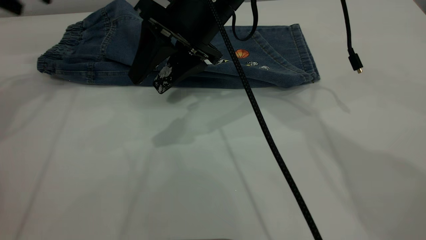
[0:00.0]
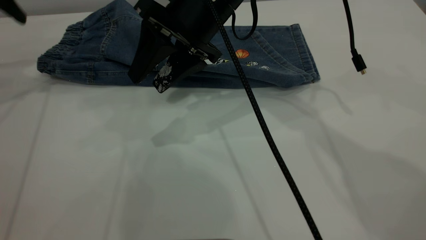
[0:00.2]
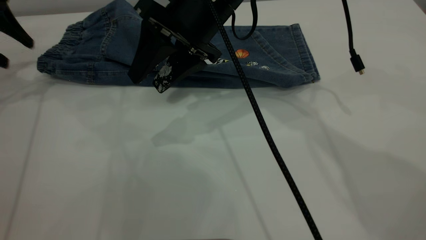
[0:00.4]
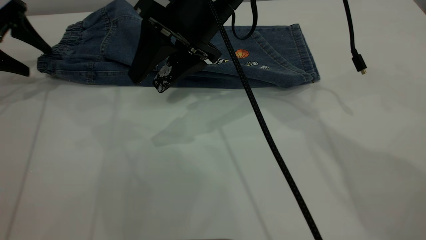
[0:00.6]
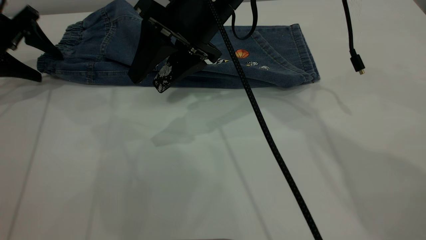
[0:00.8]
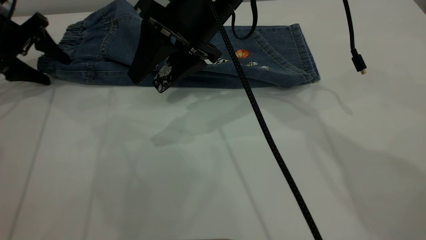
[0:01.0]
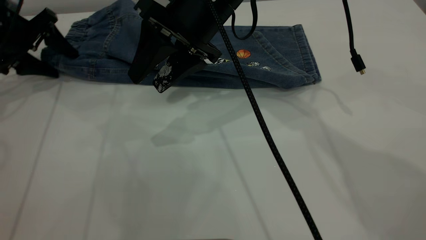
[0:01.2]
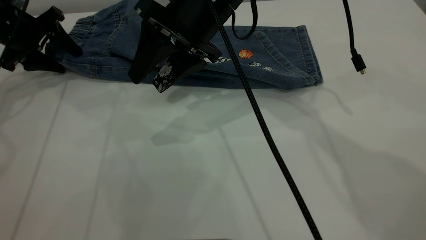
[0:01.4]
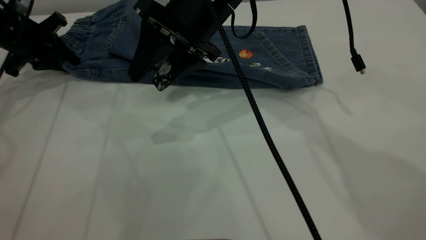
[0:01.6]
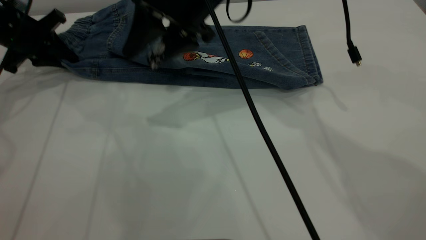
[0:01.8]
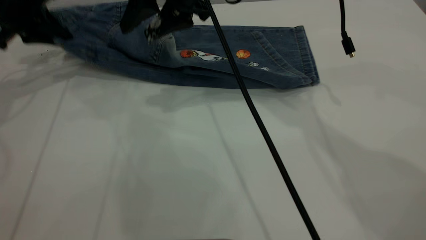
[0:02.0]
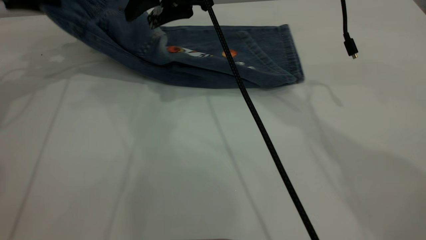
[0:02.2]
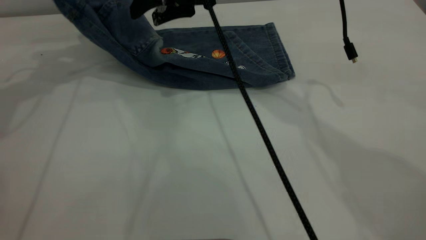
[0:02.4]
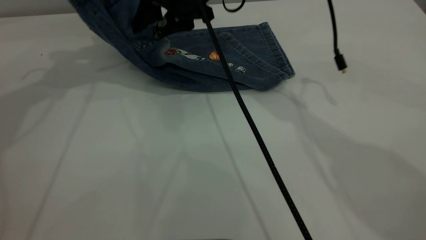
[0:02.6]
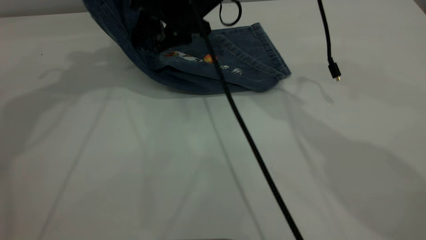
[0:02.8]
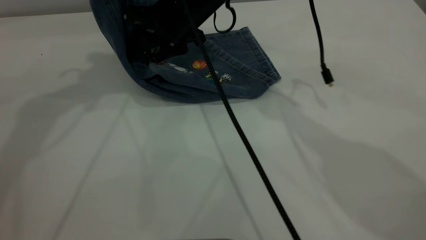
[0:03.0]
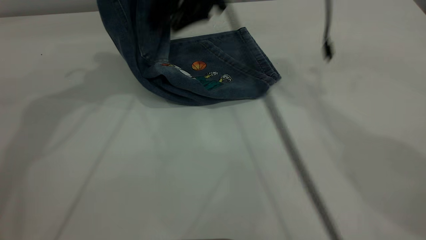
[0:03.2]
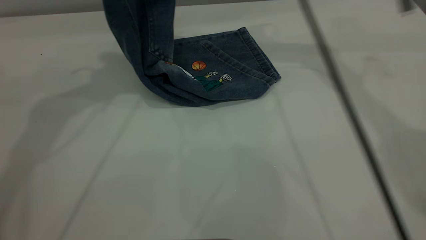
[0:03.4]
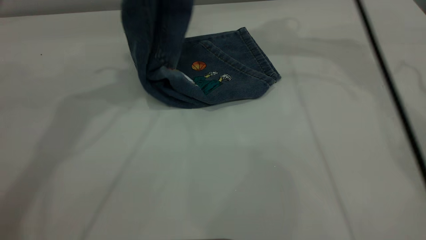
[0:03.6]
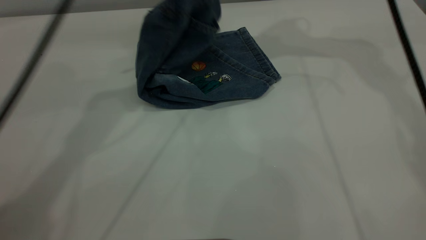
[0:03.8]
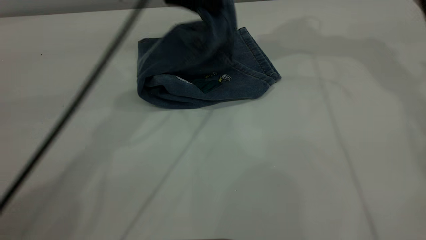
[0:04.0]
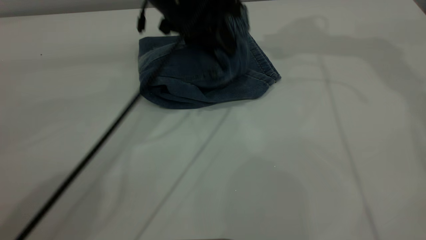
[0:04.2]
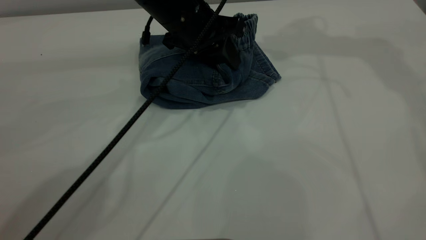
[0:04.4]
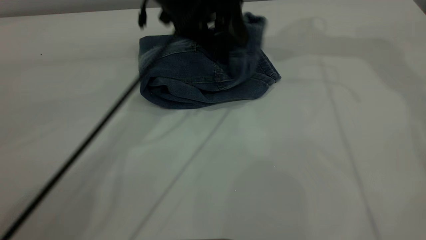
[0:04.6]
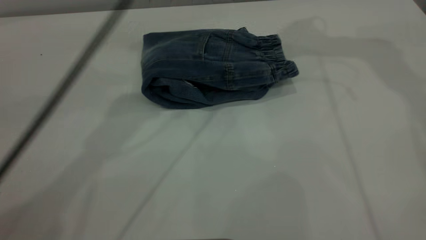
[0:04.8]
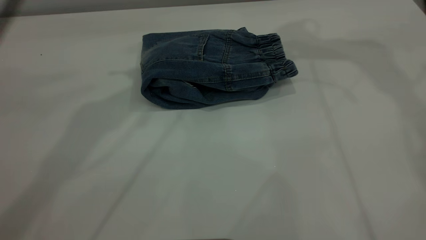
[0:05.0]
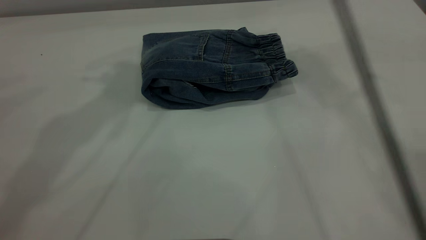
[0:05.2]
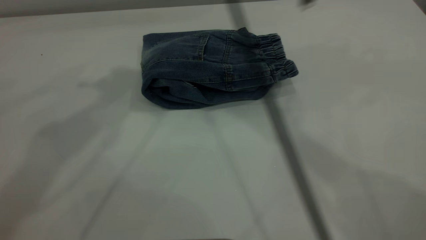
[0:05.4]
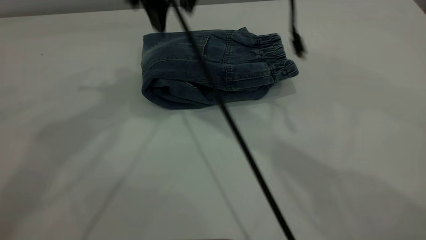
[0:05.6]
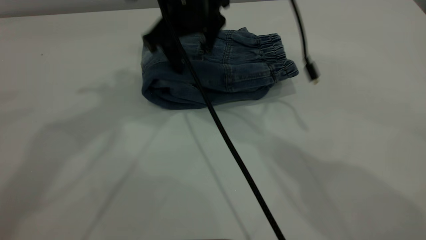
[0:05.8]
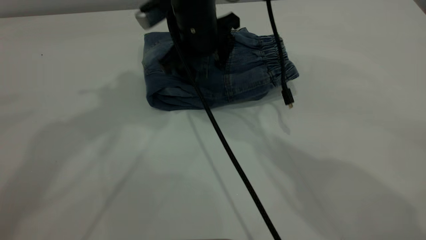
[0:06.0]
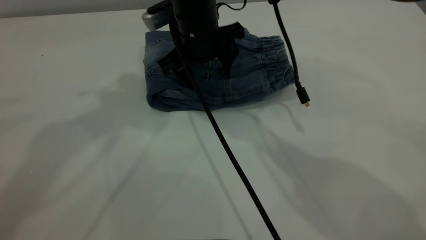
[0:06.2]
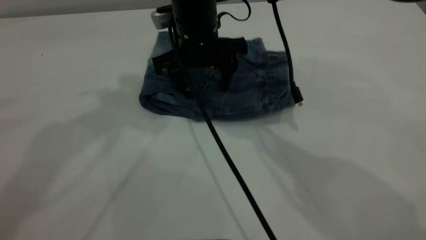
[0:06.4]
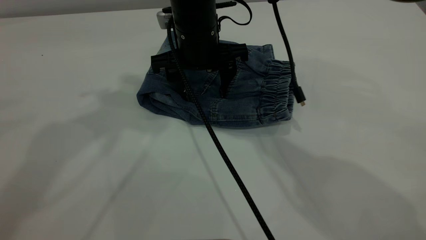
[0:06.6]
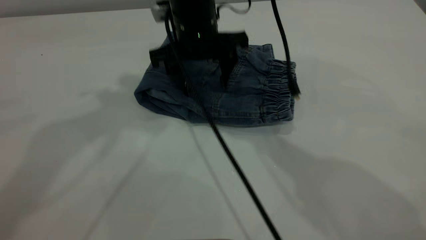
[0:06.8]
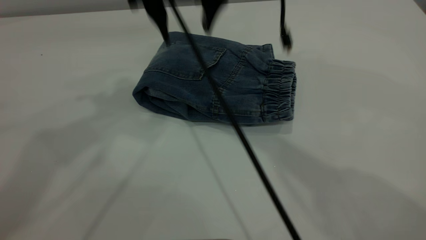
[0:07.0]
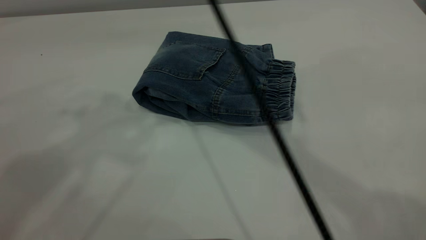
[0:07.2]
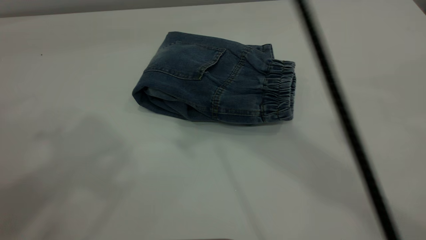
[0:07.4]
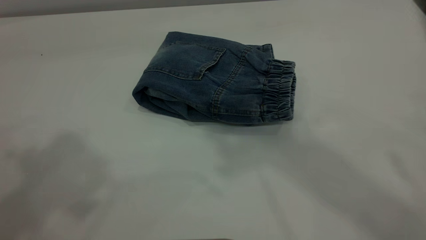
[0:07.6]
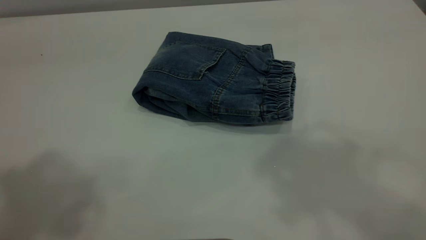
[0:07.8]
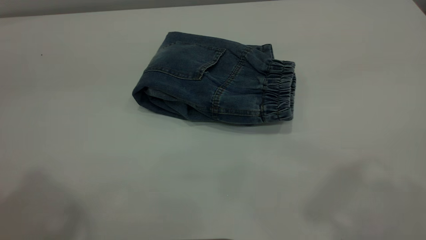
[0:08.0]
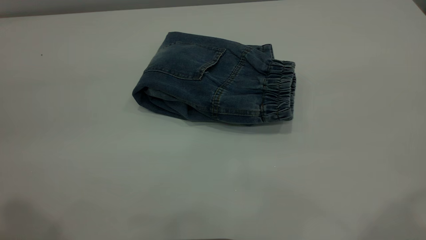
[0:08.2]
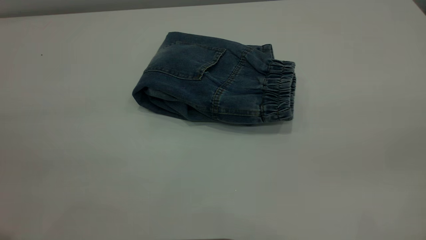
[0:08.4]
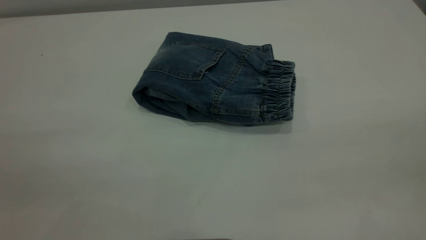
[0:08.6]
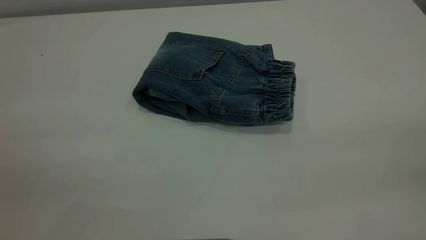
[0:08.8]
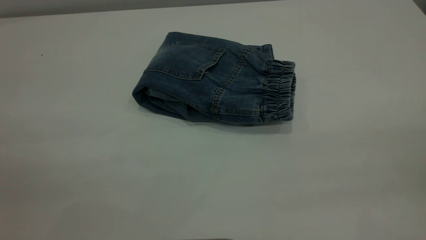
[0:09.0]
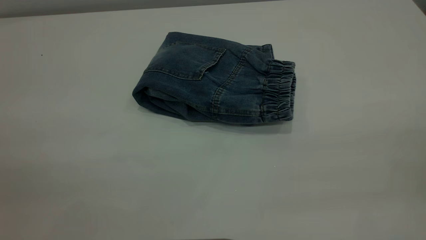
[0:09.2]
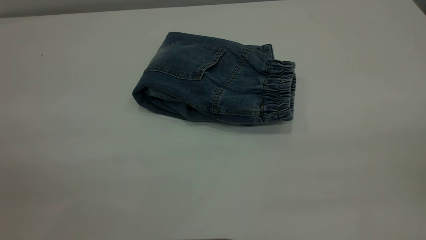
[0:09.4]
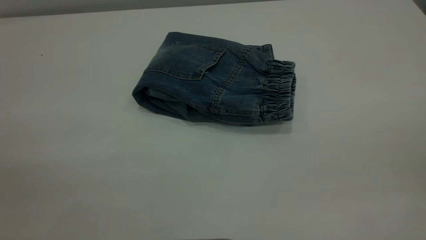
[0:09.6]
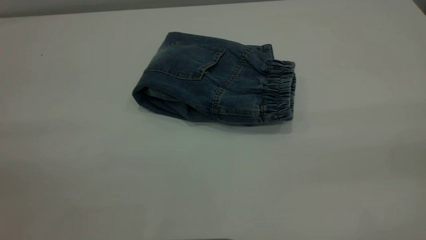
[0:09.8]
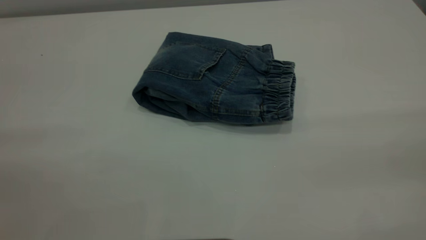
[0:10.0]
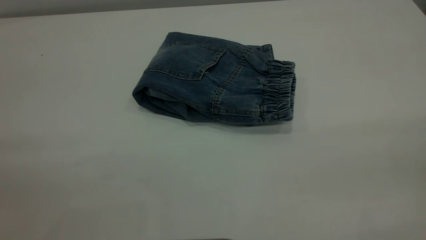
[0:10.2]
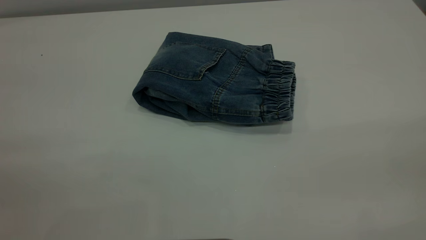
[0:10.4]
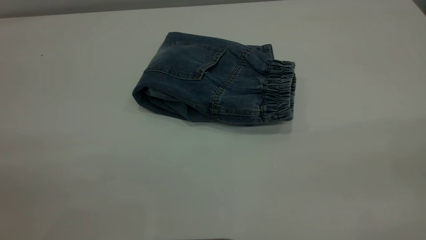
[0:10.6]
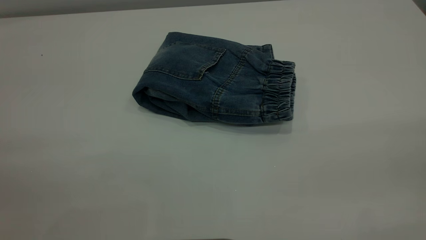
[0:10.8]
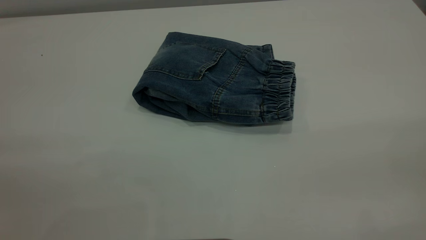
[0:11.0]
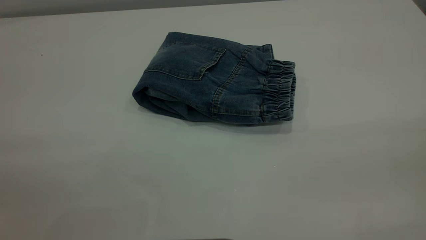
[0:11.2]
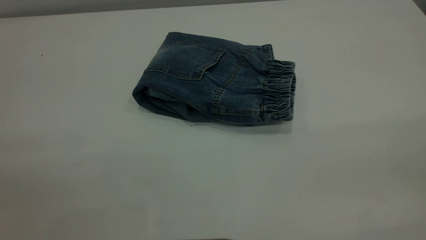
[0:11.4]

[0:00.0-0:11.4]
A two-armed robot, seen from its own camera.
Step, 0:00.0 to 0:05.4: Fold the pants from left to right.
0:00.0 to 0:01.4: The left gripper heads downward, covering roughly 15 cm.
0:01.4 to 0:02.8: The left gripper goes roughly 25 cm upward and to the right, and closes its fingers. Meanwhile the right gripper moves forward, roughly 5 cm.
0:02.8 to 0:04.2: The right gripper is displaced to the right and upward by some 30 cm; the left gripper shifts approximately 25 cm to the right and downward.
0:04.2 to 0:05.6: The right gripper moves to the left and downward, some 25 cm, and opens up, while the left gripper goes approximately 30 cm upward and to the left, and opens its fingers.
0:05.6 to 0:07.2: The right gripper shifts approximately 15 cm upward; the left gripper goes approximately 10 cm backward and upward.
0:07.2 to 0:08.6: The right gripper travels backward and to the right by approximately 40 cm. The left gripper travels backward and downward by some 25 cm.
0:10.0 to 0:11.4: The two grippers keep their place.

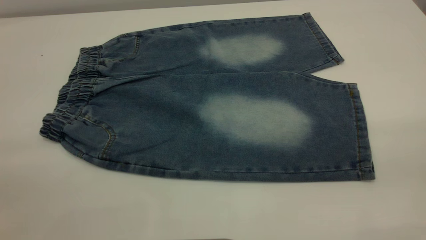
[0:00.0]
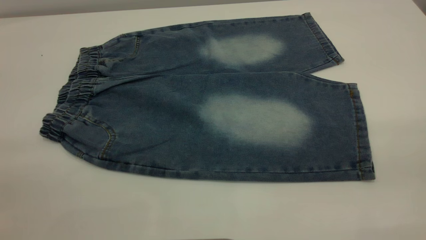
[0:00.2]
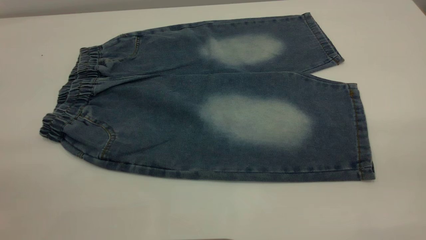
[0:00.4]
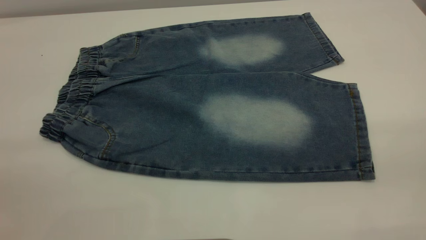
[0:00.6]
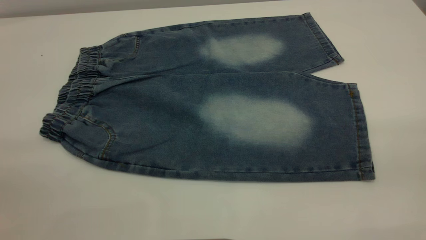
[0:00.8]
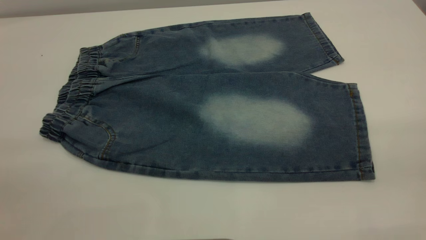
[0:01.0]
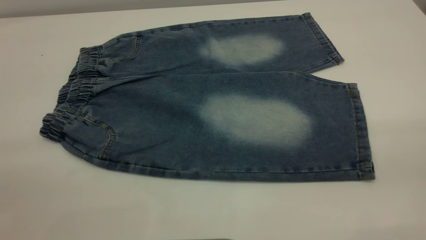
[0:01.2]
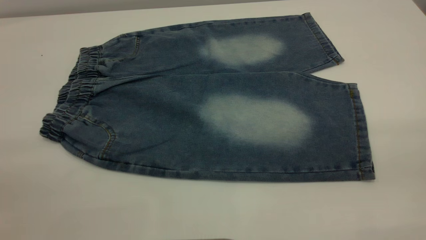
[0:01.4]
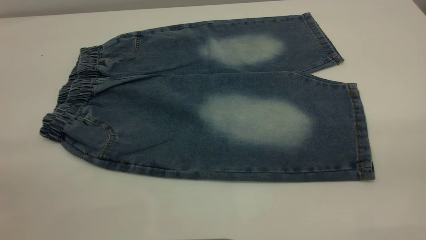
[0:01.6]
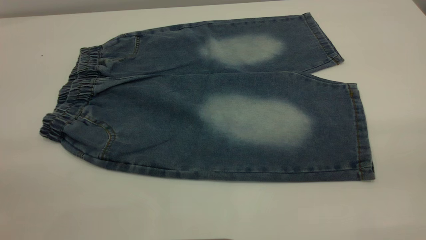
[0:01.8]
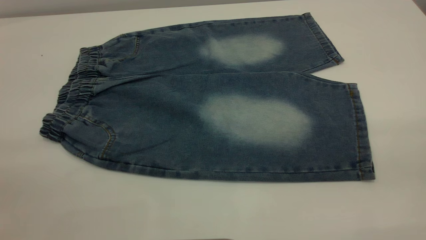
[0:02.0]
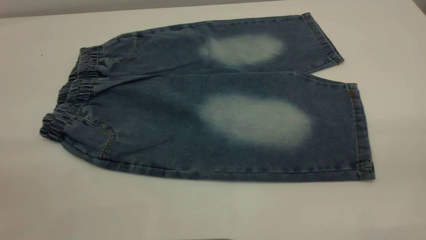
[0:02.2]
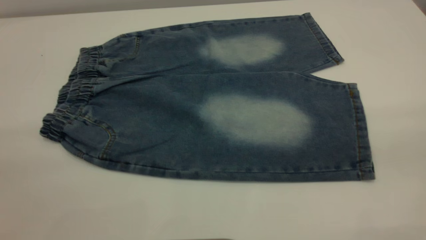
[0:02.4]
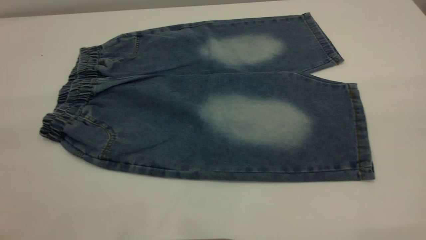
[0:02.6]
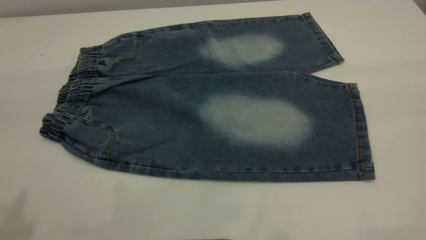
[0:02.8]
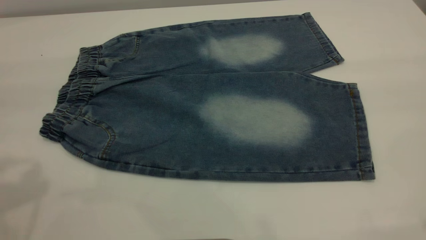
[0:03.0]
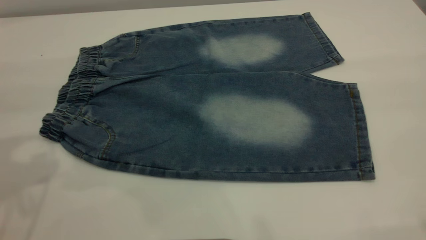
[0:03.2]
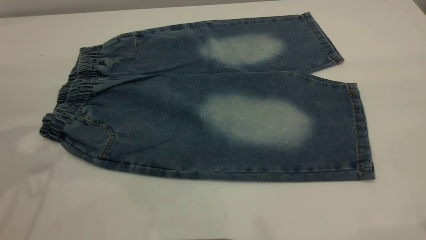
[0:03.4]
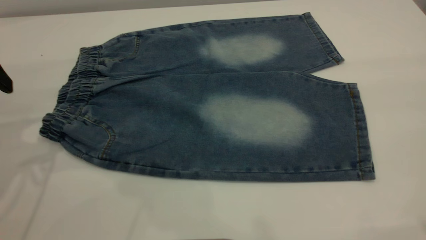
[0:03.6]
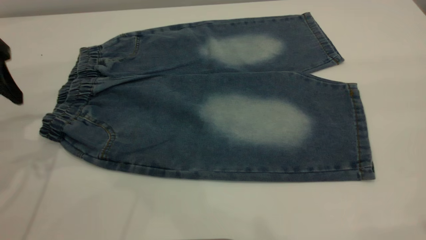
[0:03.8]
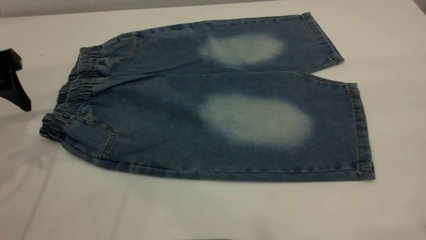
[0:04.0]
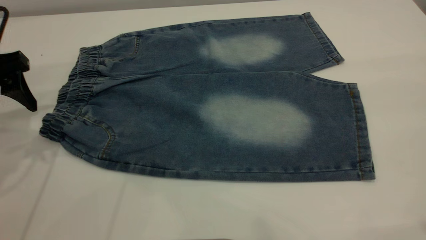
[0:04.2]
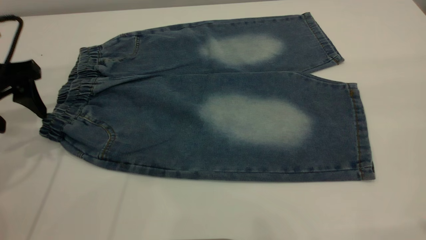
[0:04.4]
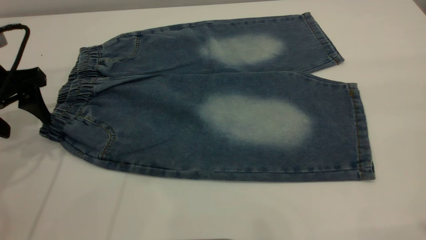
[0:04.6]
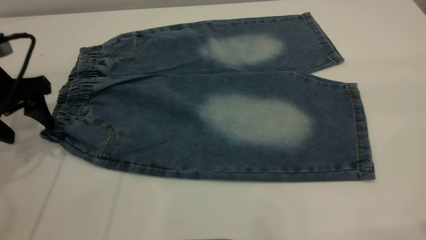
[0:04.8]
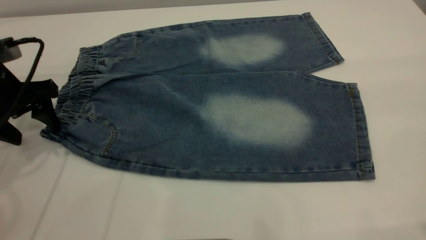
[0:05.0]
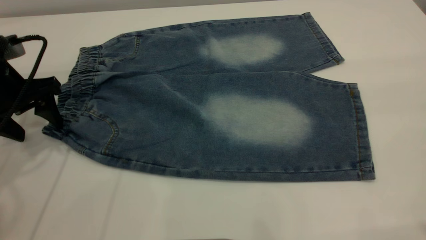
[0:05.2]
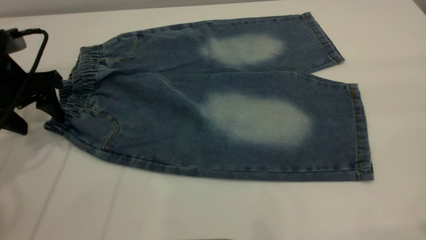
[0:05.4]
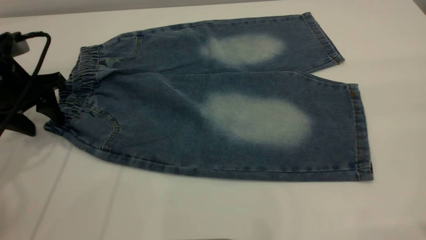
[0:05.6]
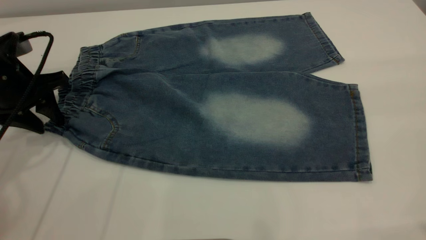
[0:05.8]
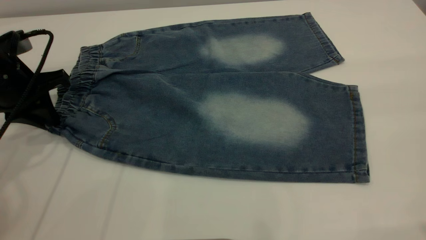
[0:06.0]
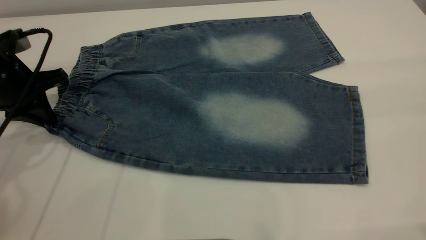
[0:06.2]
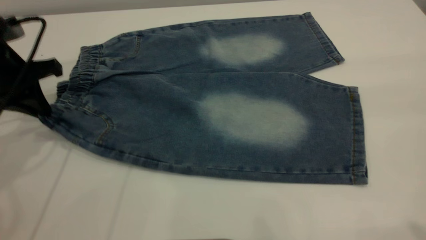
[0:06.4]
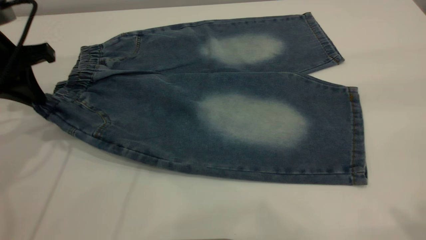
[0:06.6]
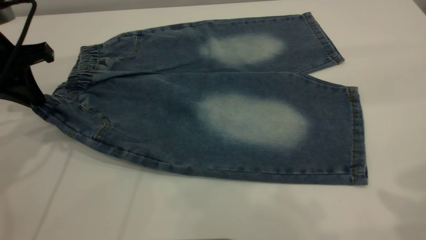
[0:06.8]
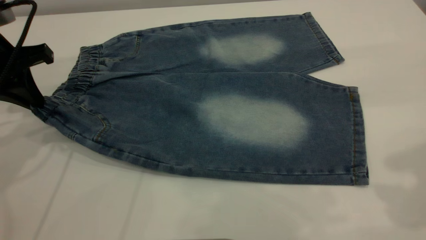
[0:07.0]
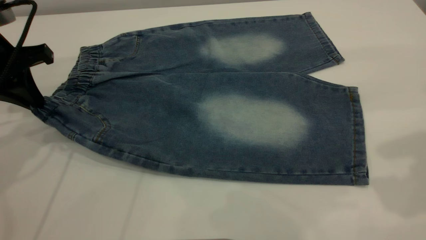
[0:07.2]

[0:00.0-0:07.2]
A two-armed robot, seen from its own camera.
0:00.0 to 0:01.4: The two grippers keep their place.
0:02.8 to 0:04.4: The left gripper heads downward and forward, covering about 25 cm.
0:04.4 to 0:05.8: The left gripper closes its fingers.
0:05.8 to 0:07.2: The left gripper moves upward, some 5 cm, and closes its fingers, while the right gripper moves forward and downward, roughly 15 cm.
